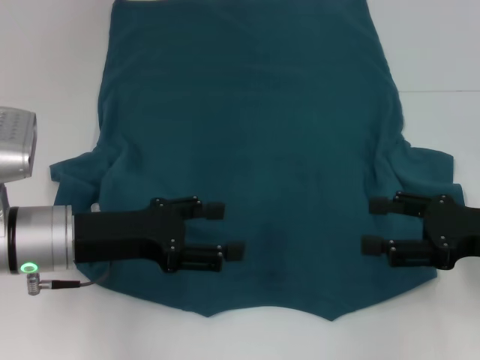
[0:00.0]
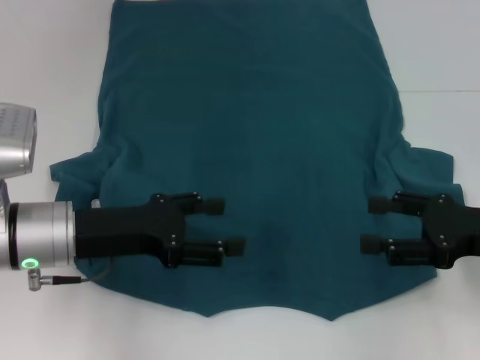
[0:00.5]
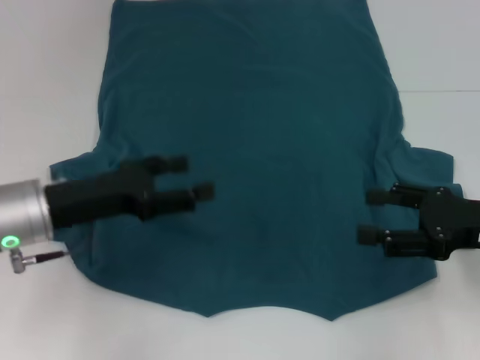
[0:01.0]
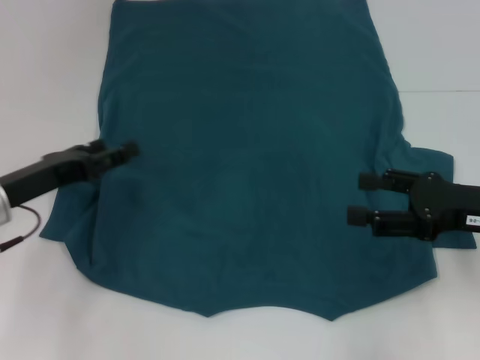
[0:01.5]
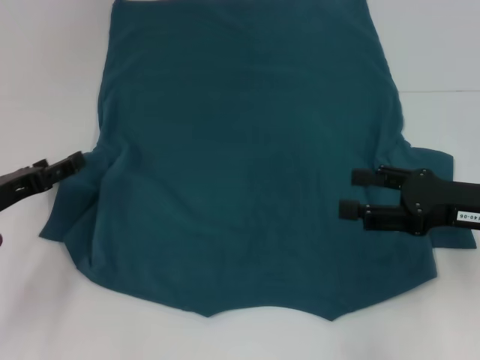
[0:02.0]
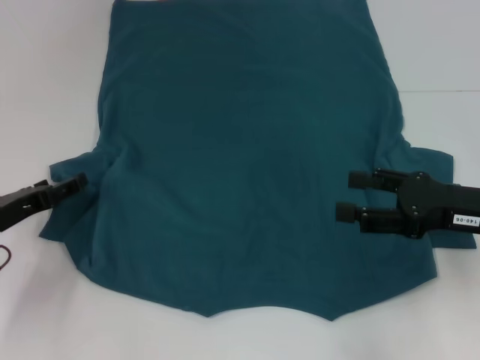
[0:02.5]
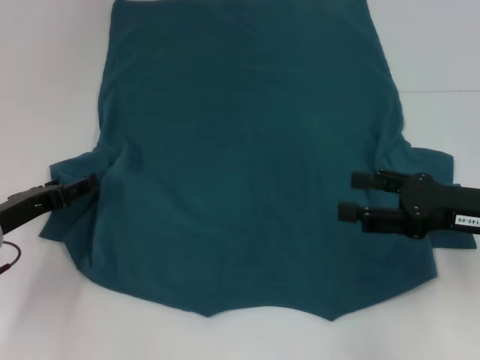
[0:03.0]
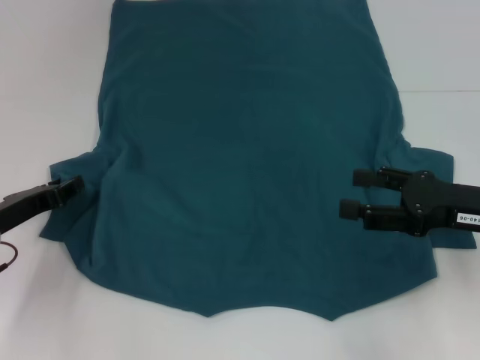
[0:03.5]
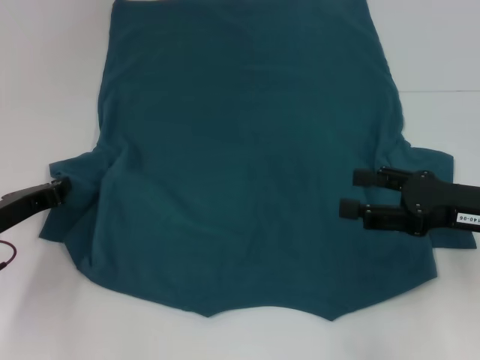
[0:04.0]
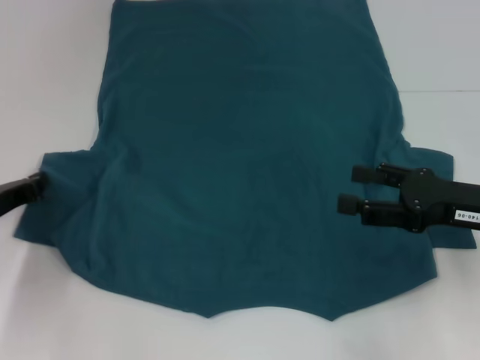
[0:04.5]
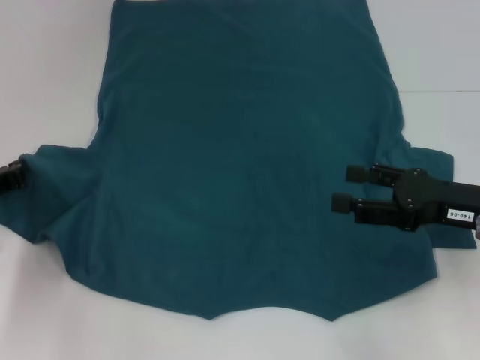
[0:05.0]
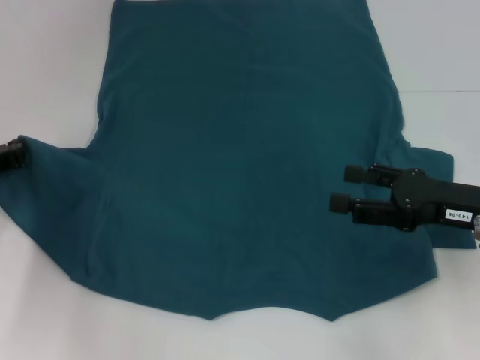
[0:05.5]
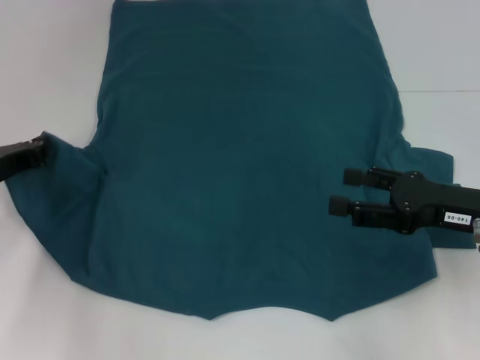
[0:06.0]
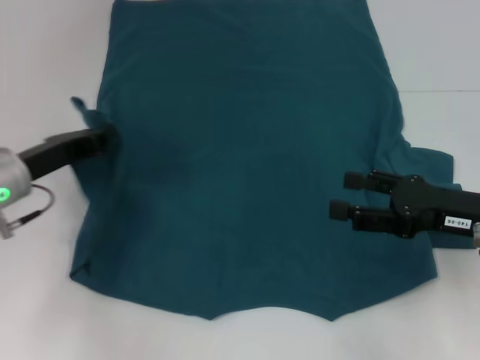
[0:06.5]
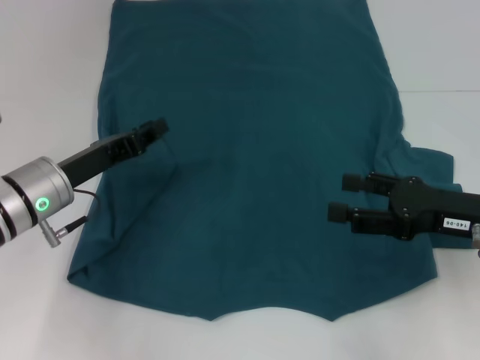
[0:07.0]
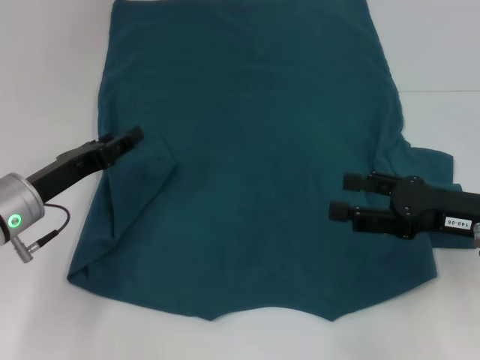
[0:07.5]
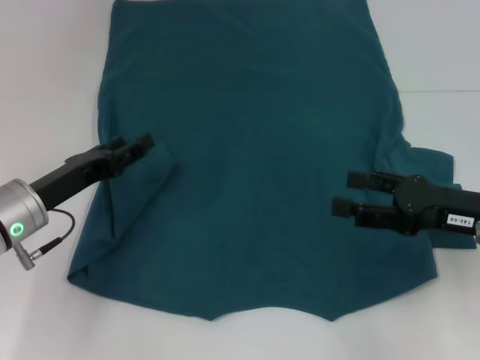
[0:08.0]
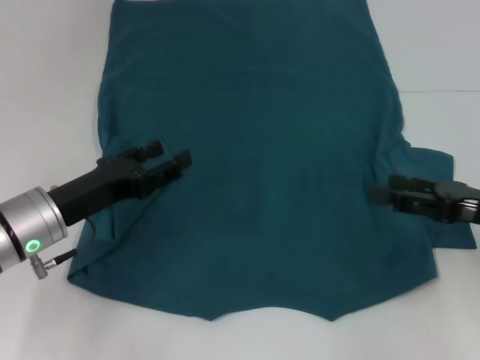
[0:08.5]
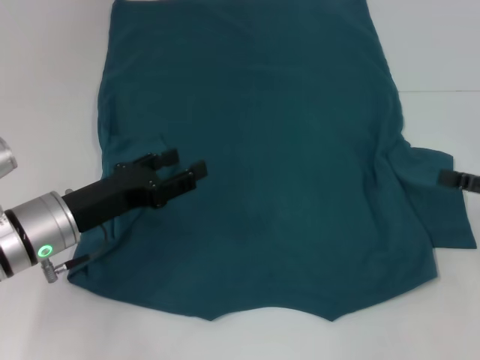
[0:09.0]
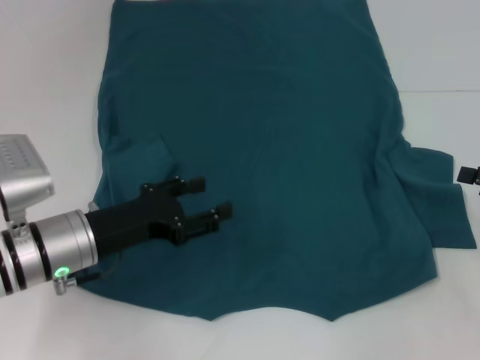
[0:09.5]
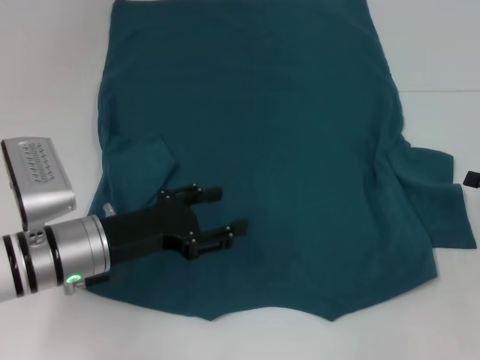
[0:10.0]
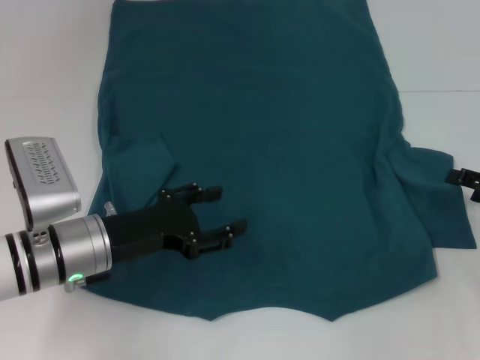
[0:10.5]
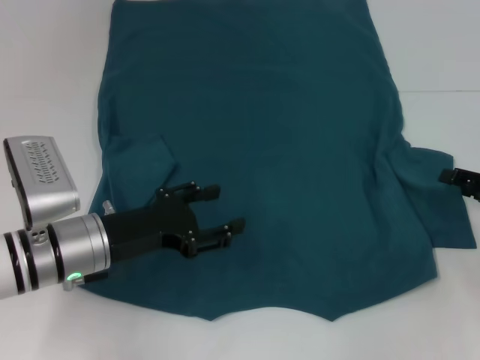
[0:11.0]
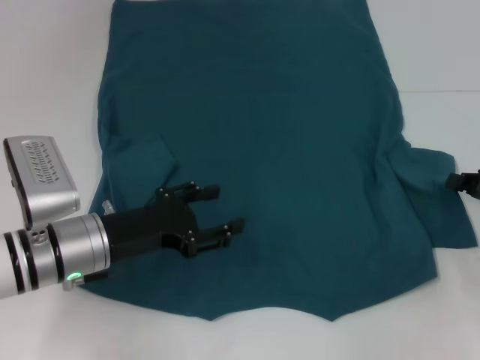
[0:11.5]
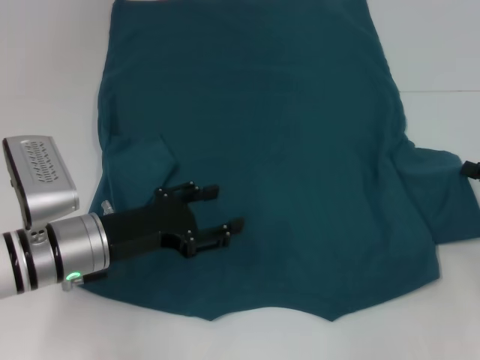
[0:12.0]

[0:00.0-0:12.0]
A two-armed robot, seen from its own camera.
Step, 0:00.0 to 0:08.5: Fold the bottom left sleeve with your left hand.
0:00.0 to 0:02.0: The left gripper shifts some 10 cm to the left.
0:02.0 to 0:04.0: The left gripper closes up.
0:04.0 to 0:06.0: The grippers stay close to where they were, moving slightly.
0:06.0 to 0:08.0: The left gripper heads to the right, covering approximately 5 cm, and opens up.
0:08.0 to 0:10.0: The left gripper goes approximately 5 cm to the right. The right gripper travels to the right by approximately 10 cm.
0:10.0 to 0:12.0: The right gripper closes up.

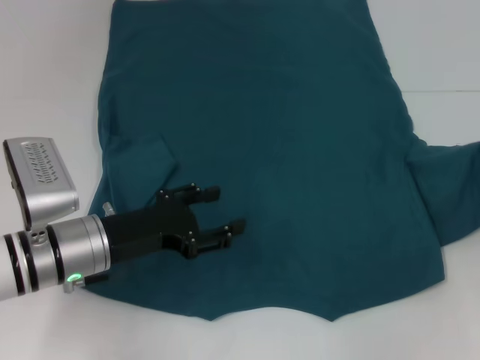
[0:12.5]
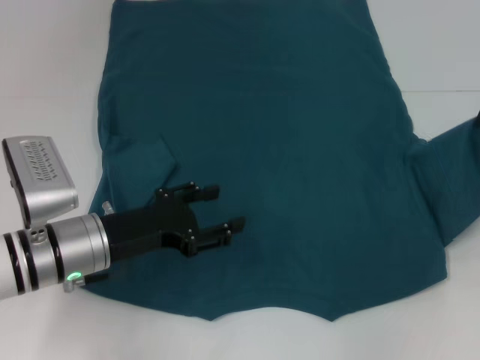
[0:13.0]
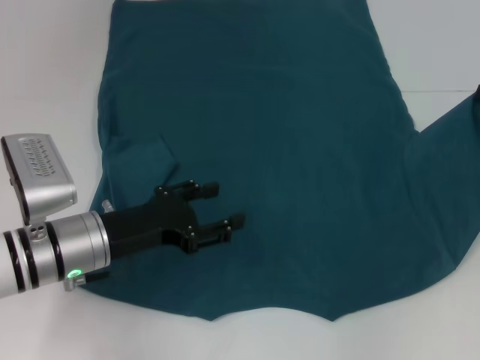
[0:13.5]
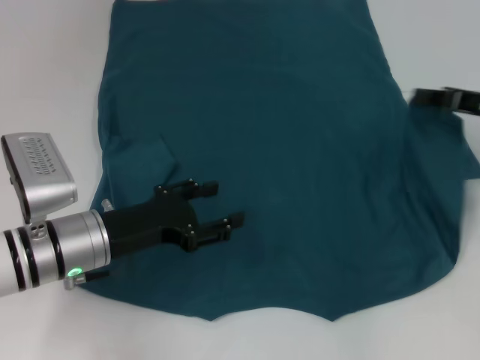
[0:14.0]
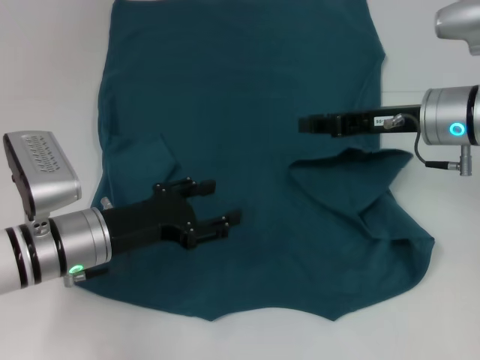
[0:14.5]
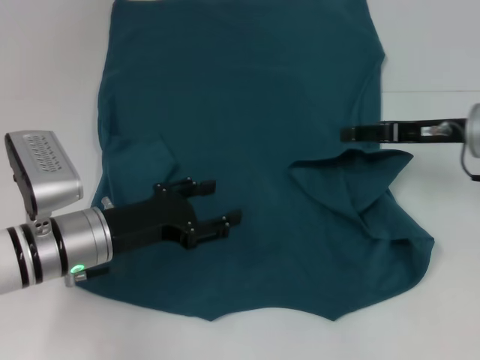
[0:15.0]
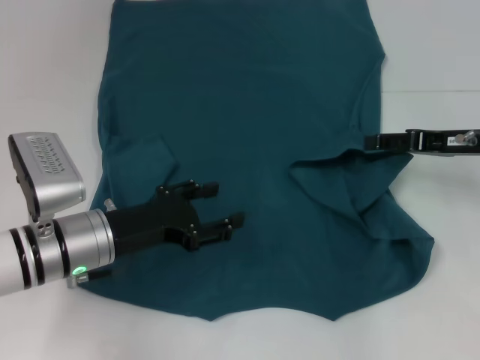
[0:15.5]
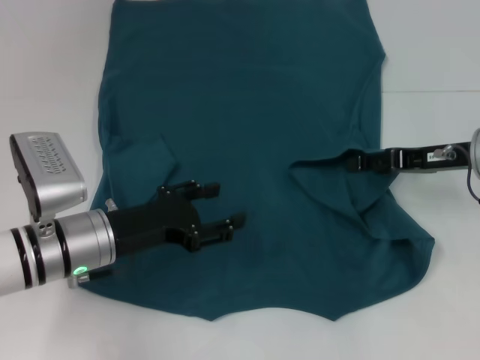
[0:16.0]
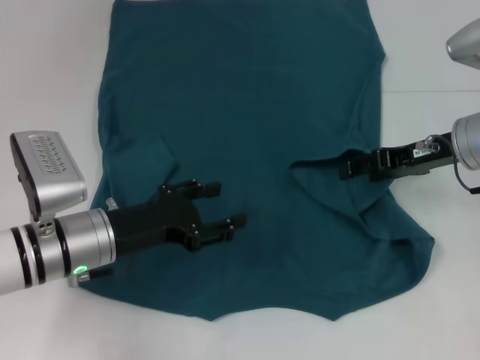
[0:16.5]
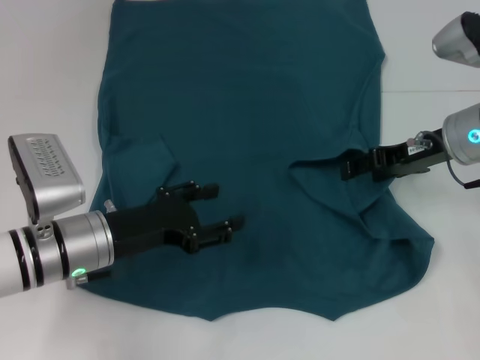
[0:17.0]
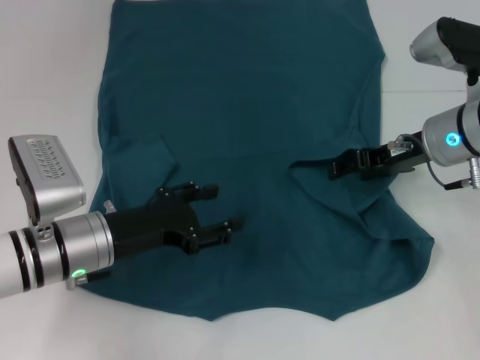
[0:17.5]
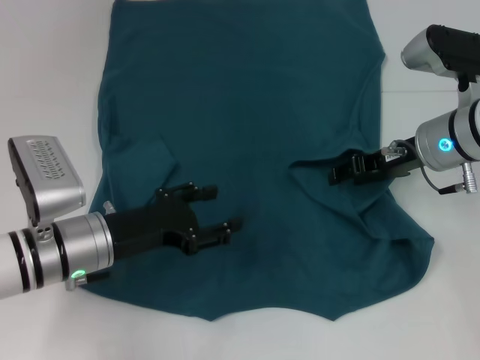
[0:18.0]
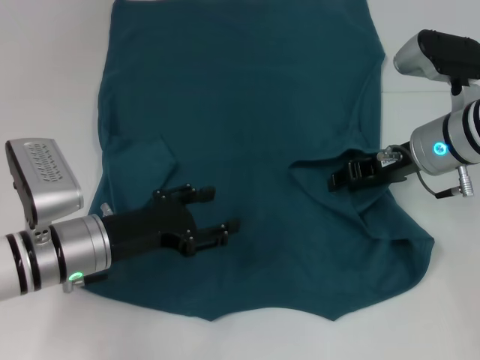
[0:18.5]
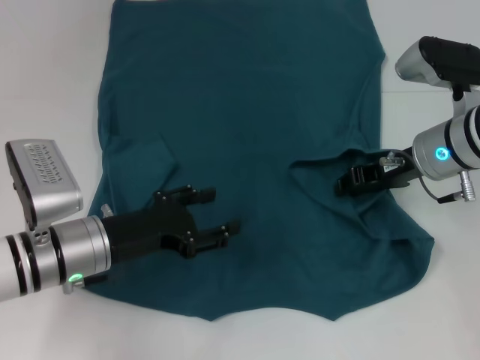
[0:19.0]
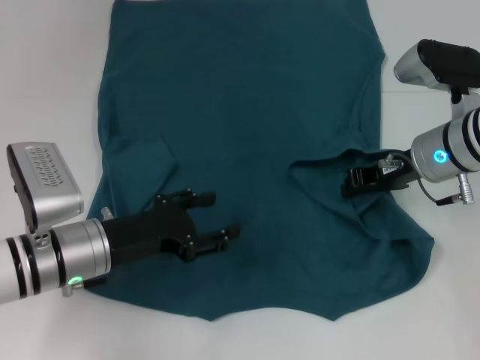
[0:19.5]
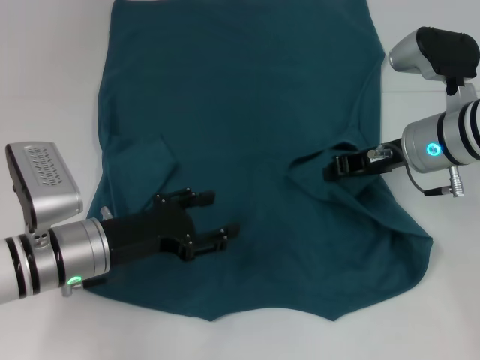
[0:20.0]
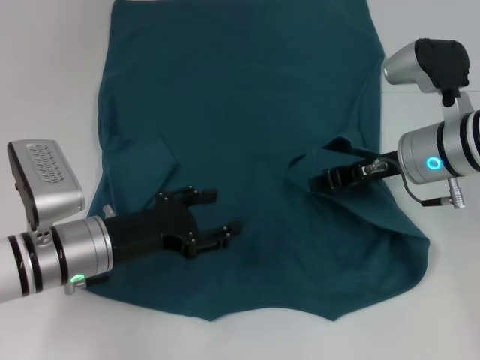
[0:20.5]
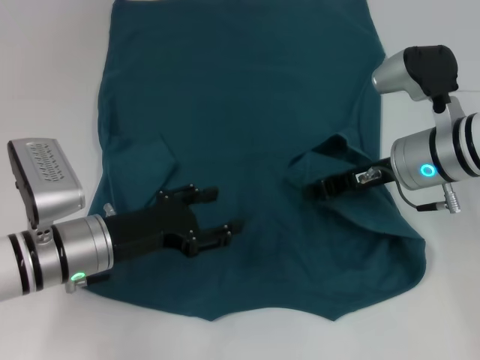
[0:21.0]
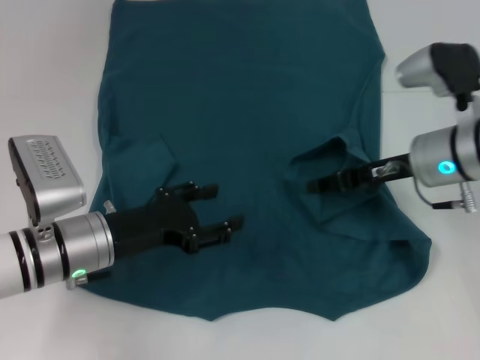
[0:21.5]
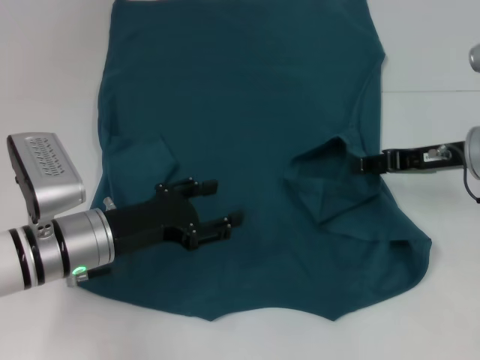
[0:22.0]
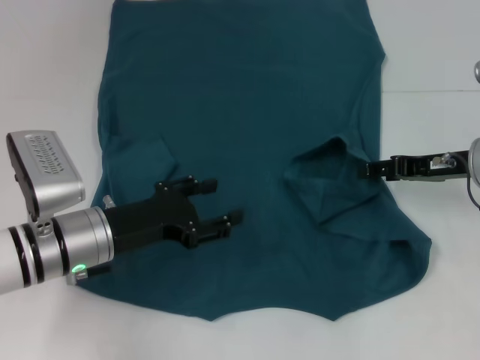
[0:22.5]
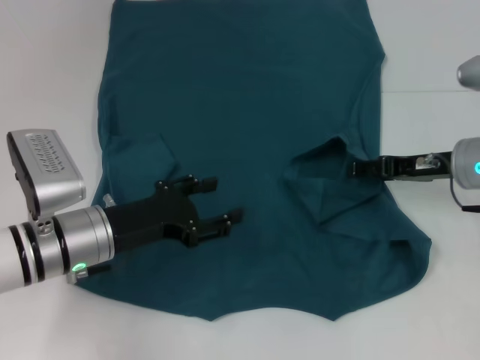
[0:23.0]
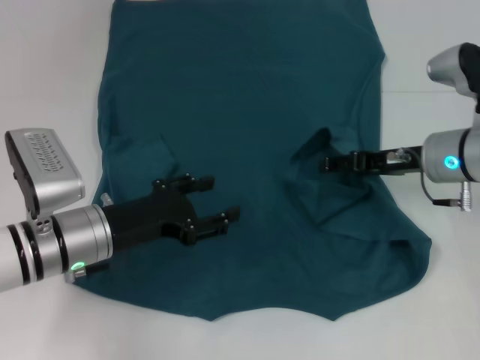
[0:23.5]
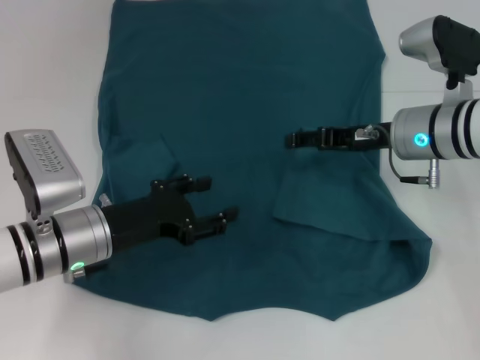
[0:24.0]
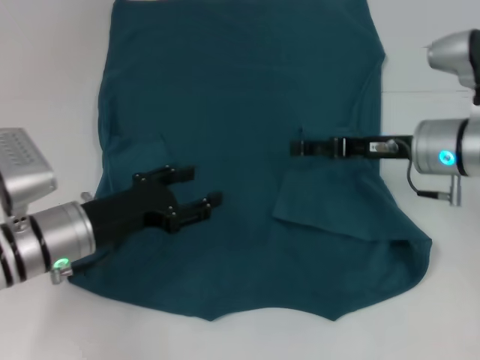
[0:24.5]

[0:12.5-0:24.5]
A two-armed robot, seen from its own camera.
Step, 0:12.5 to 0:24.0: Fold the bottom right sleeve to the right.
0:12.5 to 0:14.5: The right gripper shifts about 15 cm to the left.
0:14.5 to 0:16.5: The right gripper opens.
0:16.5 to 0:18.5: There are only small adjustments of the grippers.
0:18.5 to 0:20.5: The right gripper closes up.
0:20.5 to 0:22.5: The right gripper heads to the right, covering approximately 5 cm, and opens.
0:22.5 to 0:24.5: The right gripper travels to the left by approximately 5 cm.

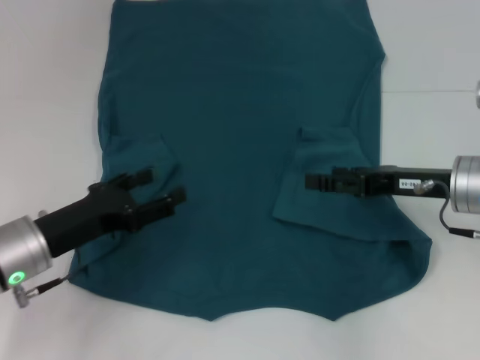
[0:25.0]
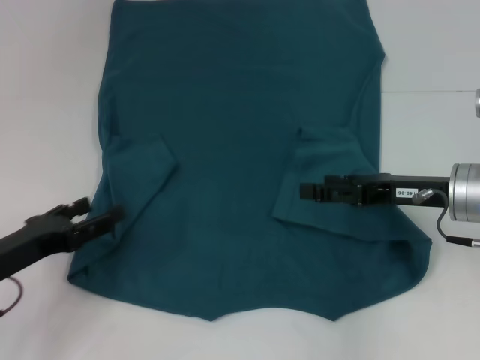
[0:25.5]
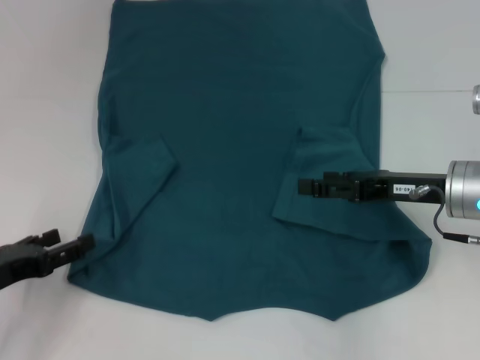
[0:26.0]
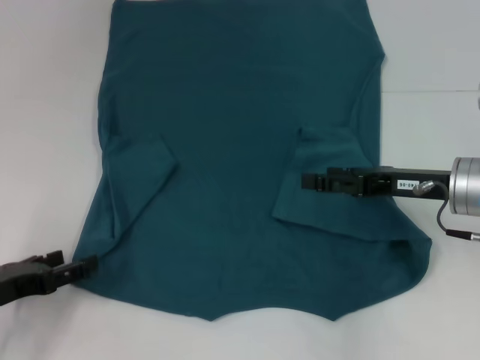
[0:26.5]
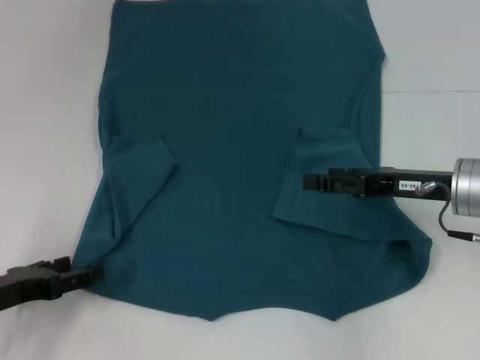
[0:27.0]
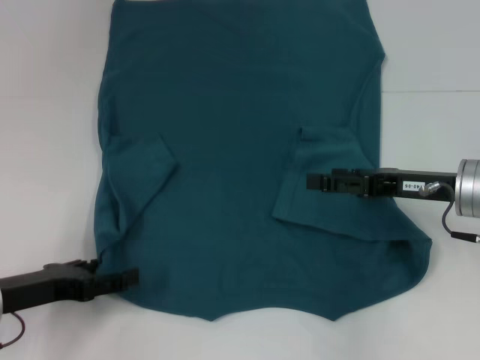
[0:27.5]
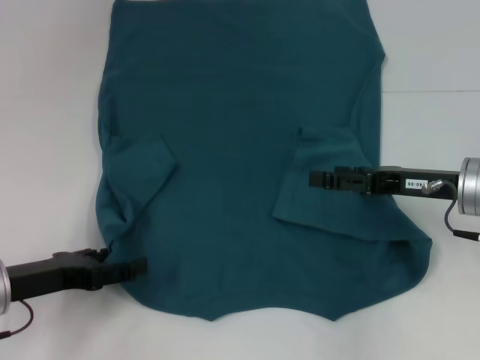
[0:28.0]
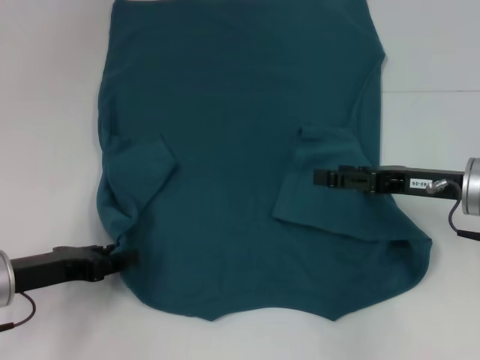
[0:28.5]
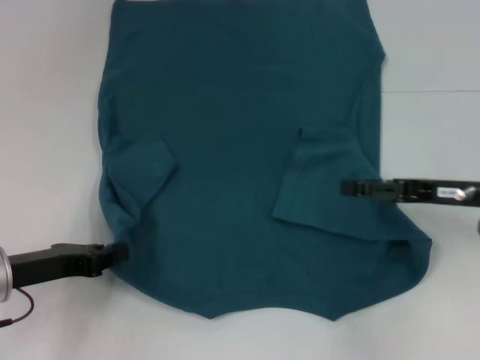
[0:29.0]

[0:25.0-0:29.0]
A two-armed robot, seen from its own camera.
0:25.0 to 0:27.0: The left gripper shifts some 5 cm to the left.
0:27.0 to 0:29.0: The left gripper ends up about 5 cm from where it was, and closes up.
